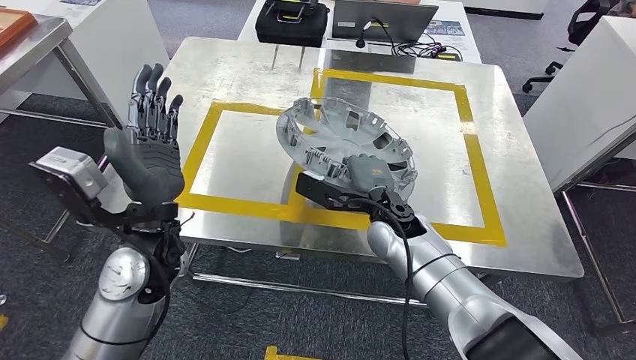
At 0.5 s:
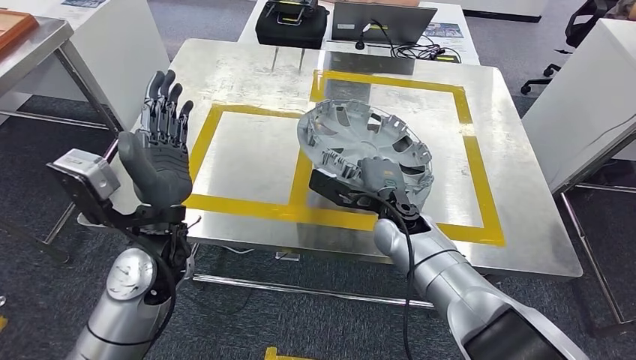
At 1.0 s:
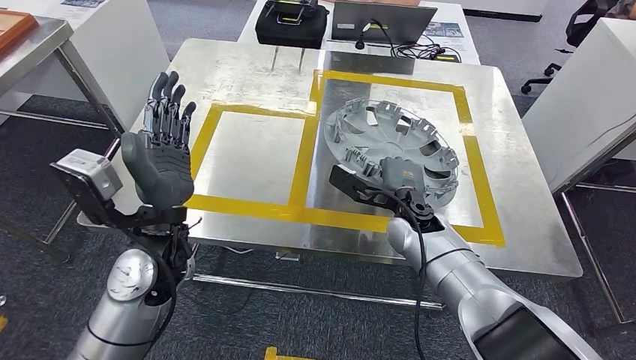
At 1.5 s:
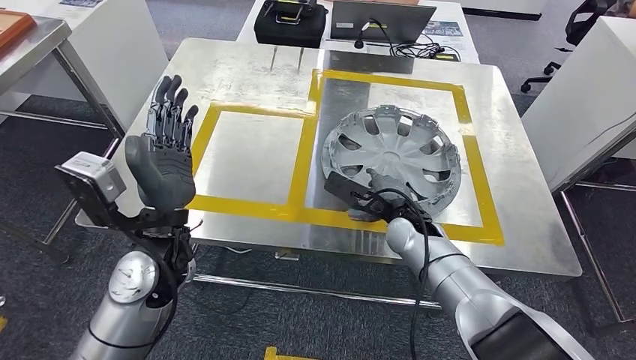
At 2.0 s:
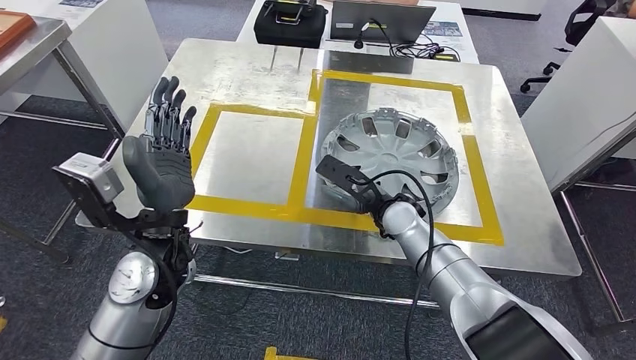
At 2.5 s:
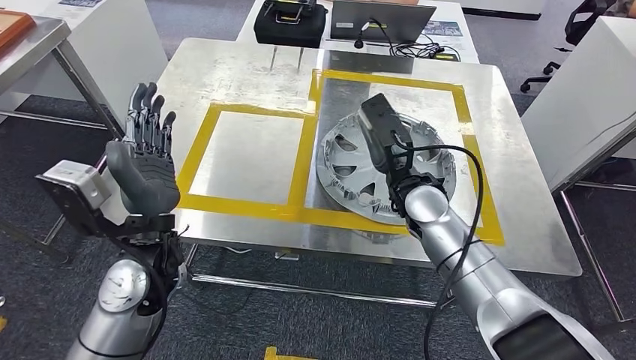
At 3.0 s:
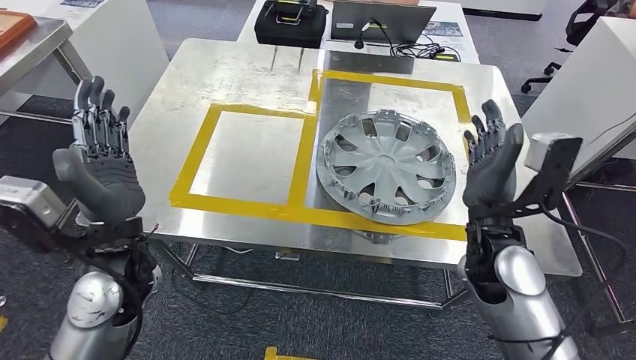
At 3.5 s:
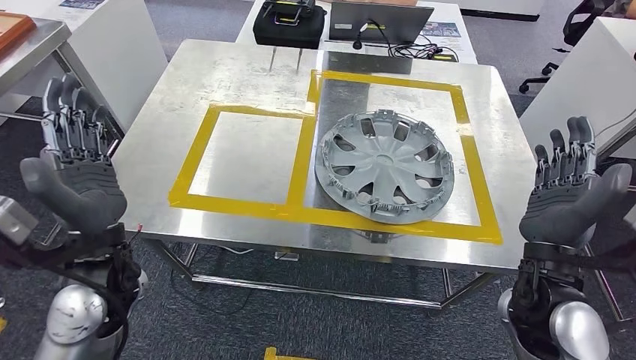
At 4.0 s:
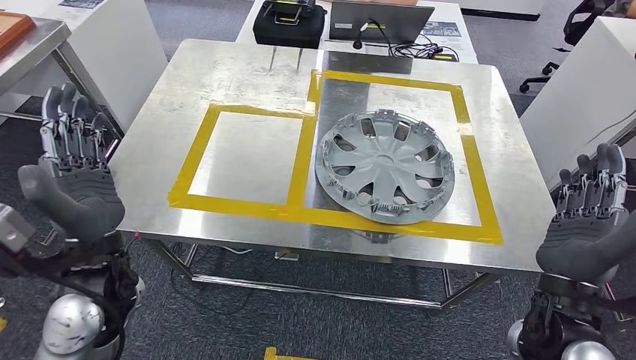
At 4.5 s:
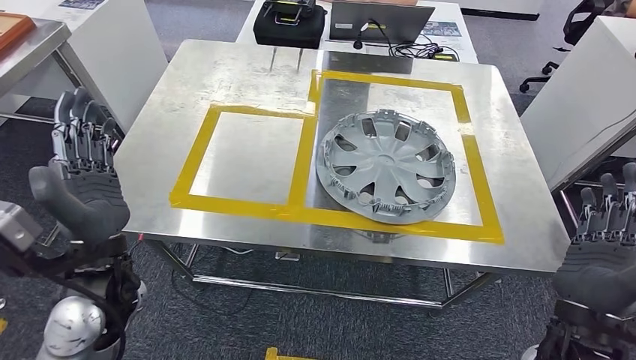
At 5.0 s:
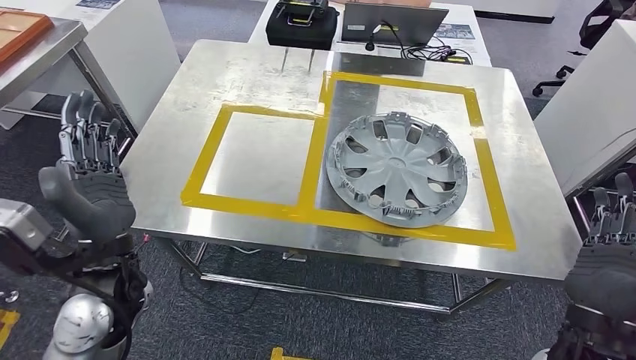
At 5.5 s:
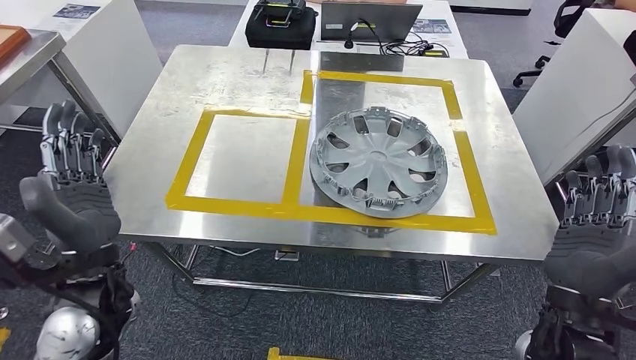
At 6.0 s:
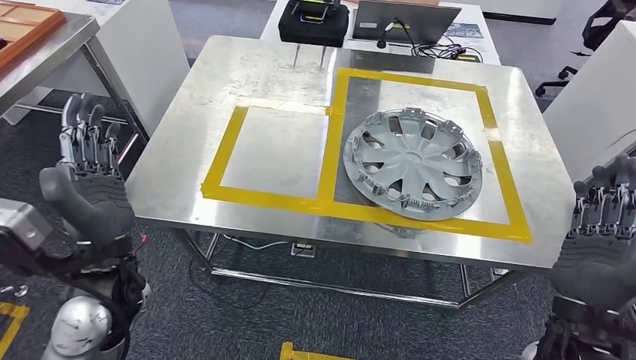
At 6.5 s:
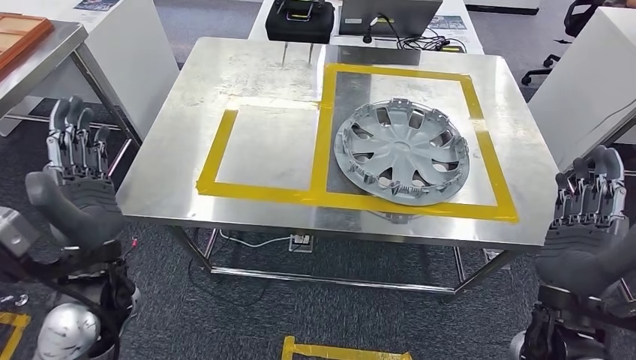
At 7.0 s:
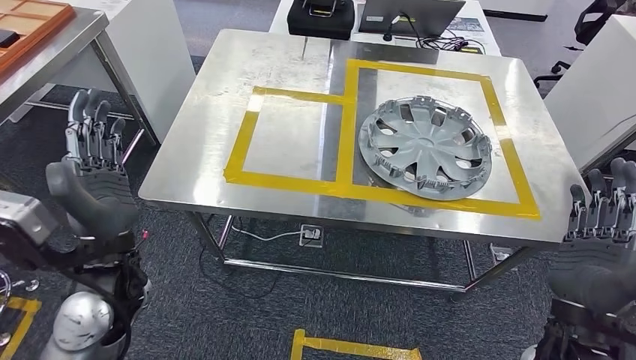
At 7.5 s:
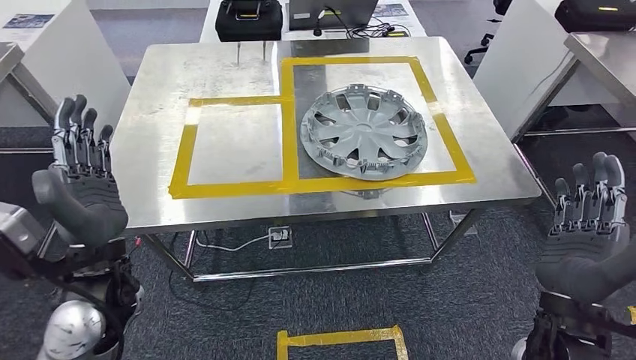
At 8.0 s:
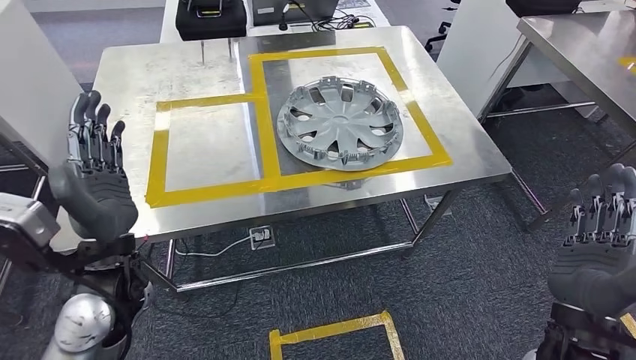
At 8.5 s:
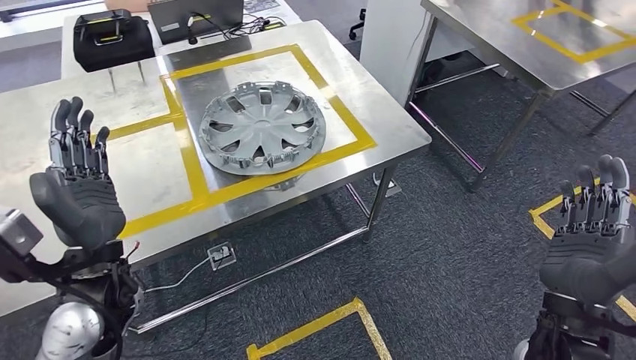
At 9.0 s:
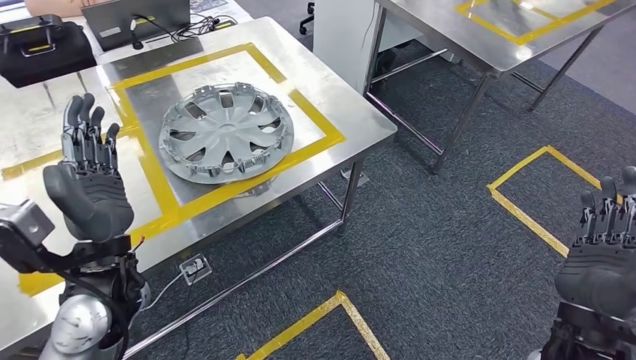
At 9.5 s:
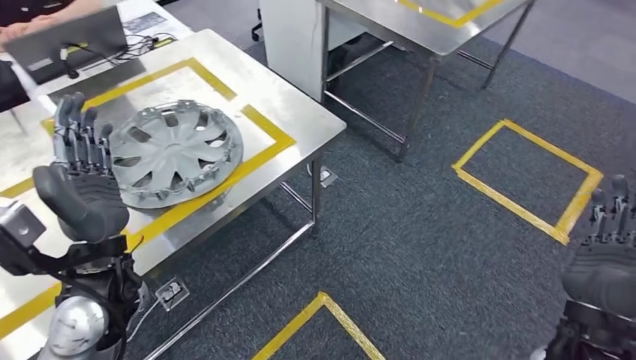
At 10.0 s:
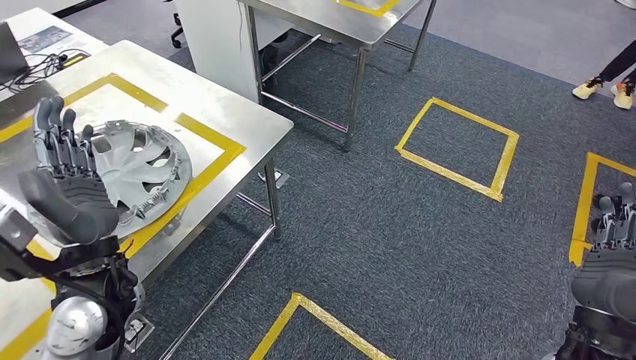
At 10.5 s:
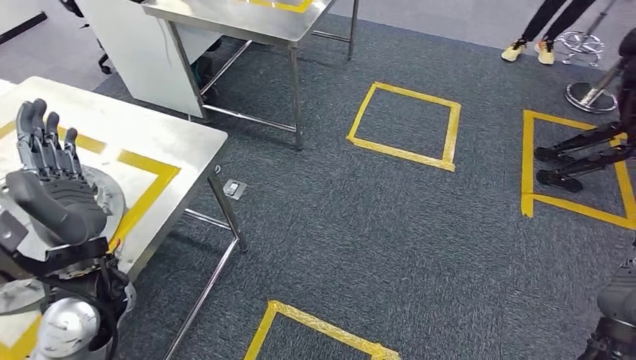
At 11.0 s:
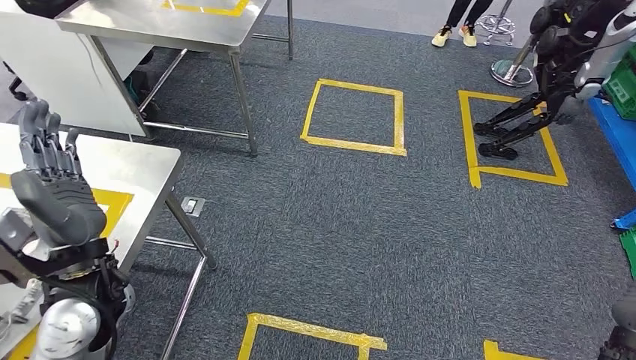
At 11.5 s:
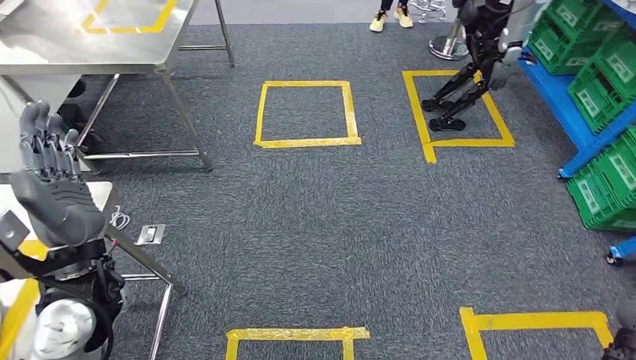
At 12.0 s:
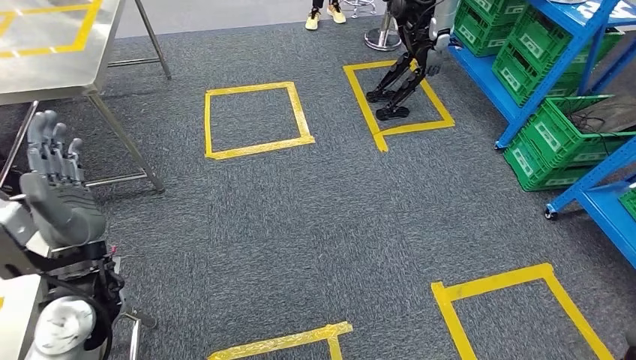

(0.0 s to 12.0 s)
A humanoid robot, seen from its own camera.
Step, 0.0 s - 2.5 s: Insert the small component into the corresponding slot on the workbench.

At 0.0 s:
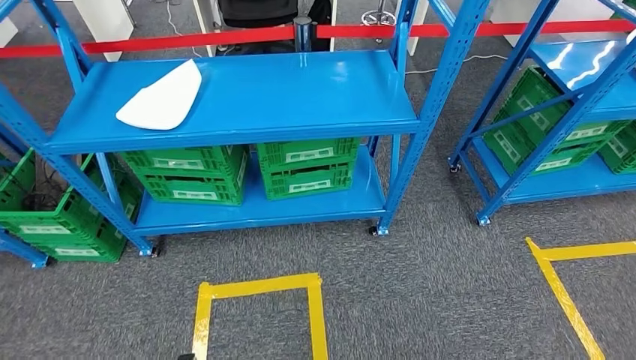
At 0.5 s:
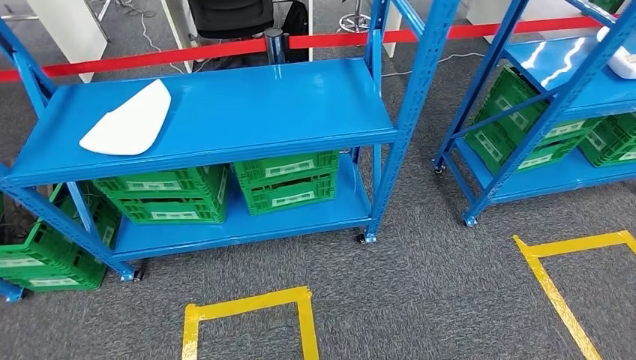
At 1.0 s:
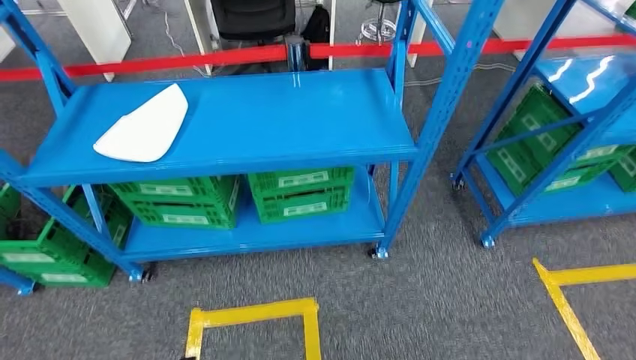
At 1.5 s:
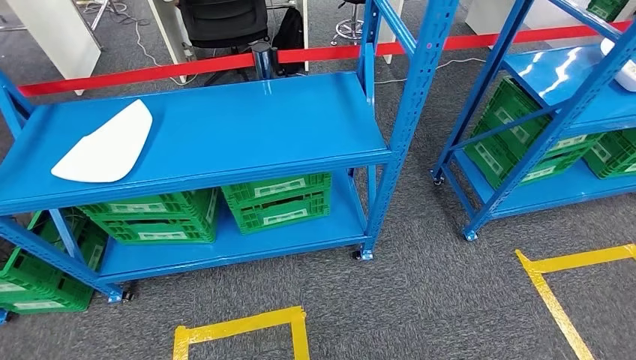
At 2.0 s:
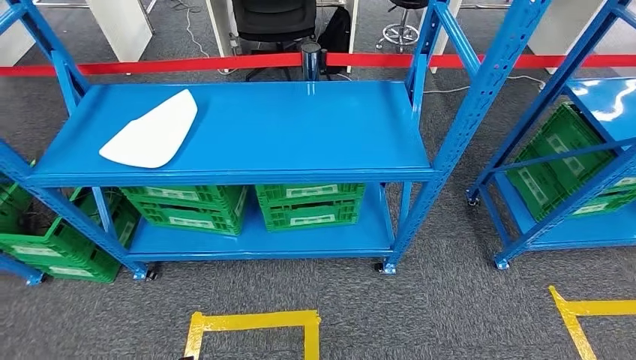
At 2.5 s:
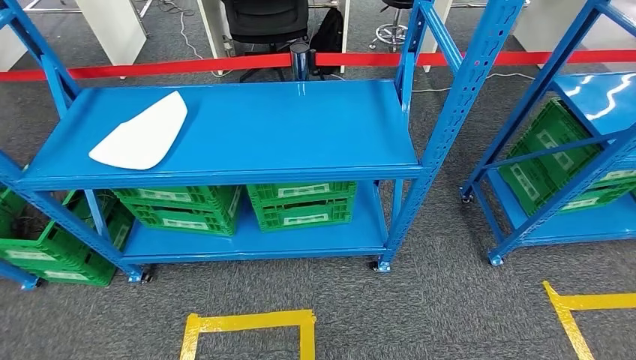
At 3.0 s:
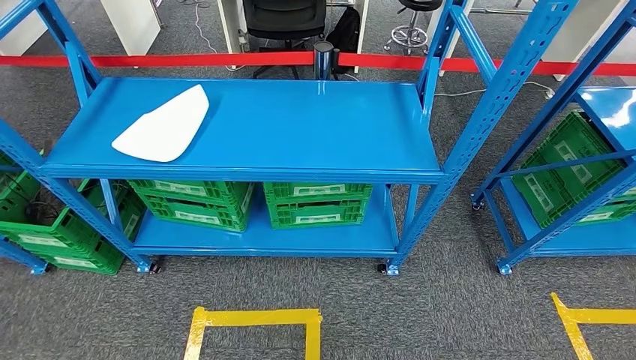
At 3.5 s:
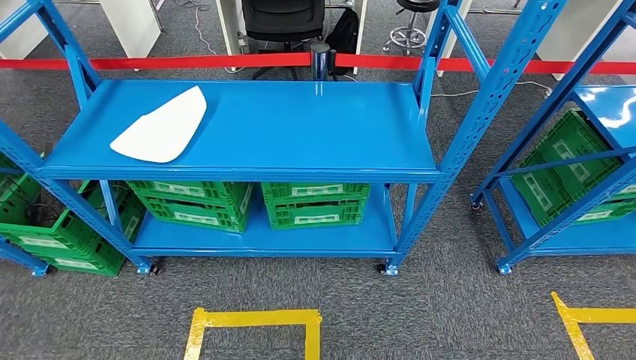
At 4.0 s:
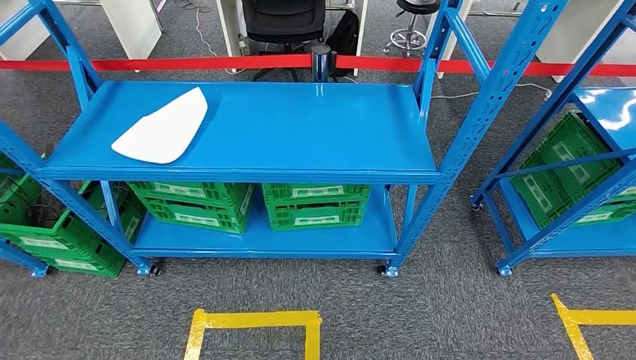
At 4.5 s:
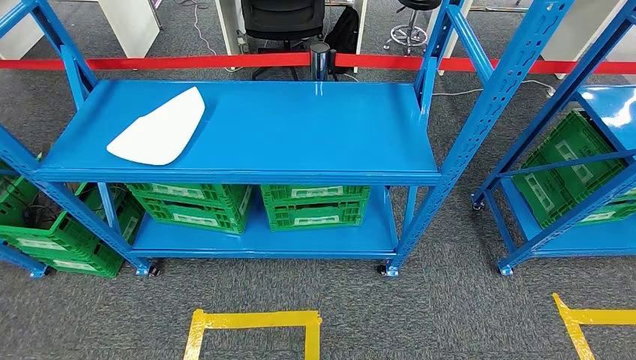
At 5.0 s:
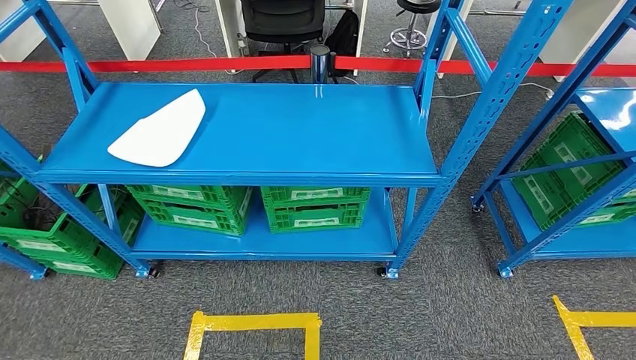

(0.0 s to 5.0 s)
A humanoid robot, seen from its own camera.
Step, 0.0 s - 5.0 s: Move to the initial position of the workbench.
